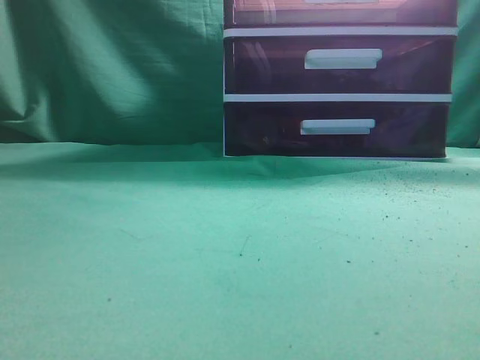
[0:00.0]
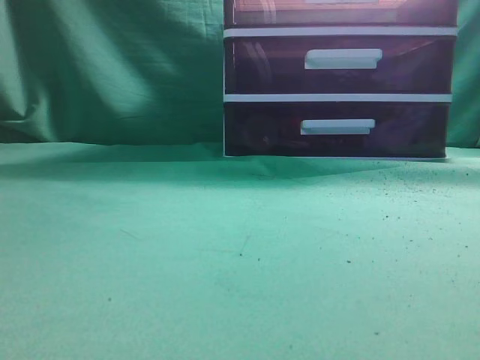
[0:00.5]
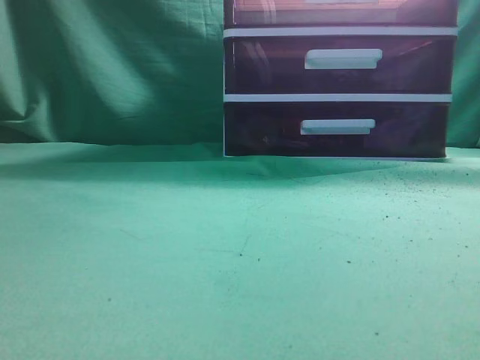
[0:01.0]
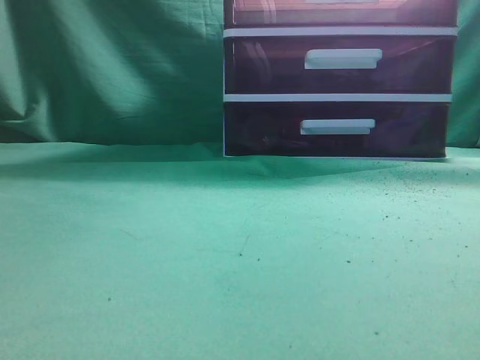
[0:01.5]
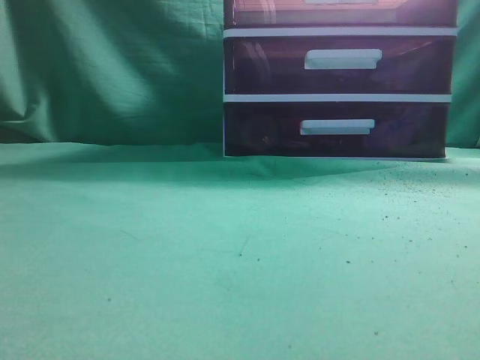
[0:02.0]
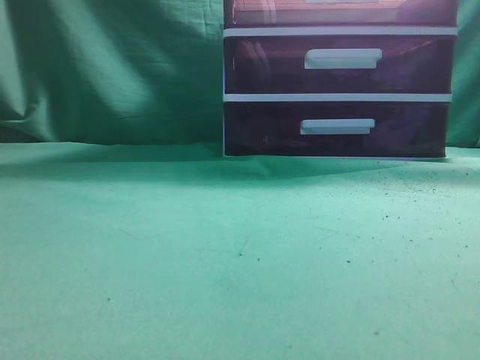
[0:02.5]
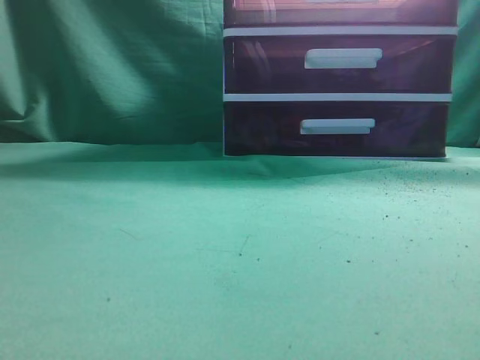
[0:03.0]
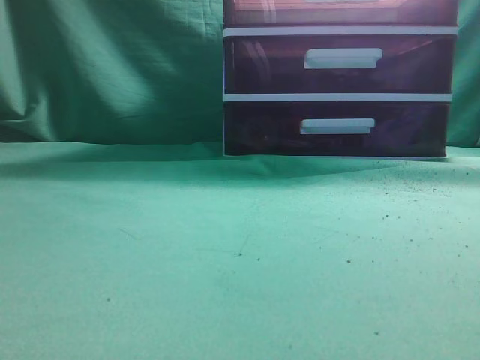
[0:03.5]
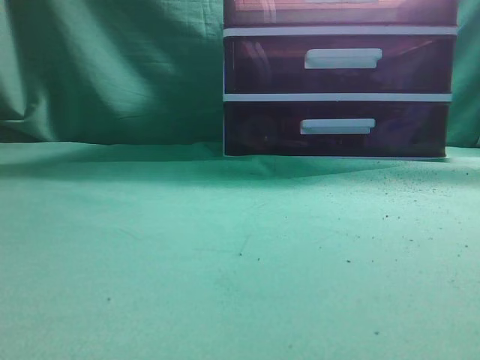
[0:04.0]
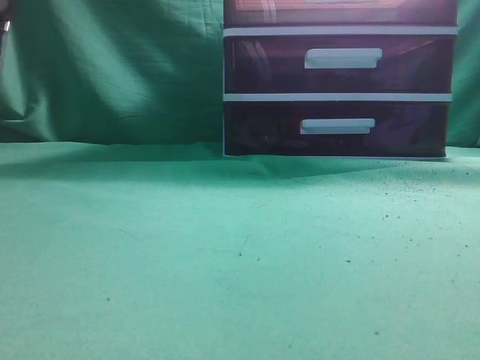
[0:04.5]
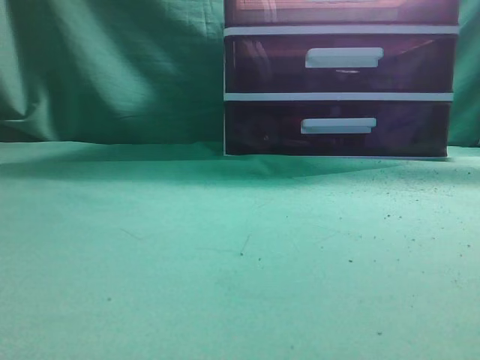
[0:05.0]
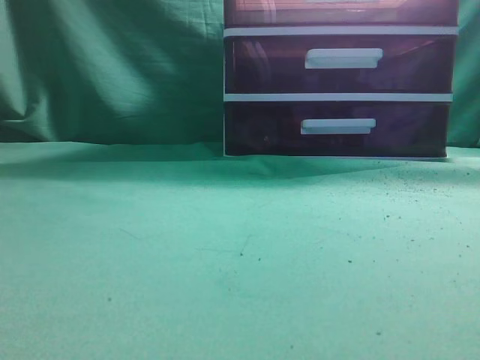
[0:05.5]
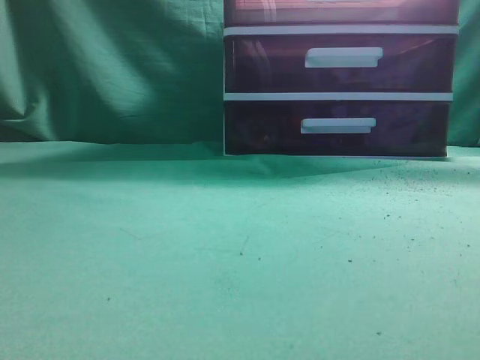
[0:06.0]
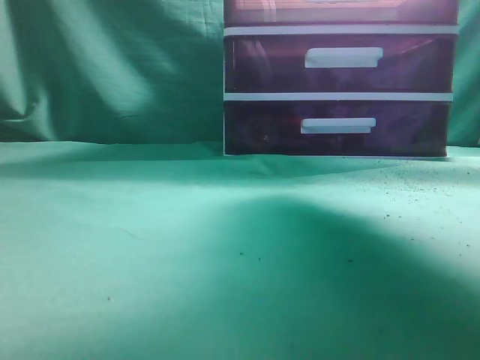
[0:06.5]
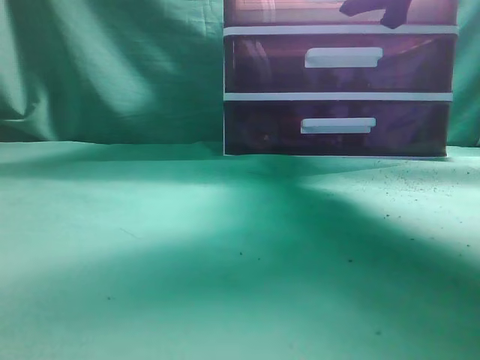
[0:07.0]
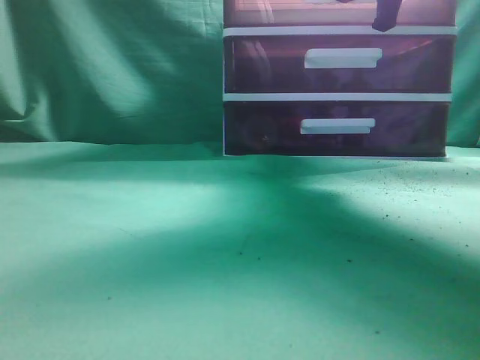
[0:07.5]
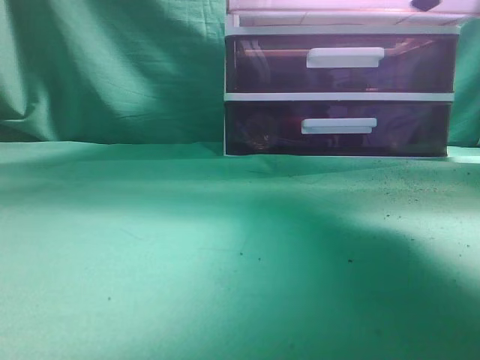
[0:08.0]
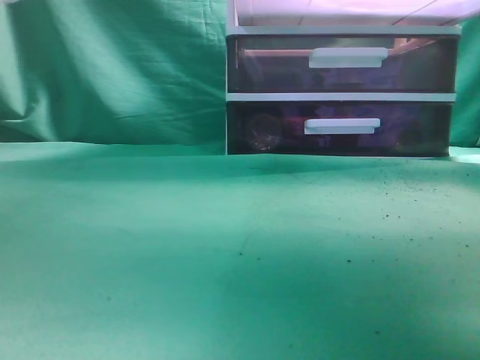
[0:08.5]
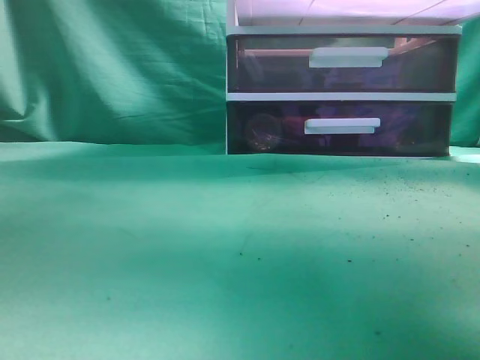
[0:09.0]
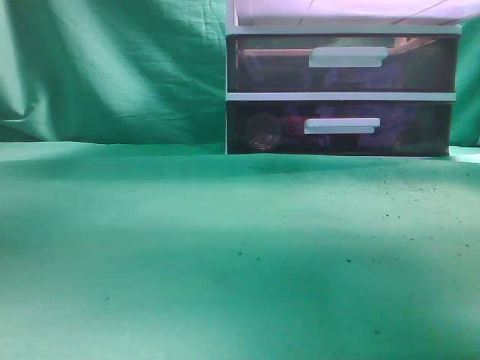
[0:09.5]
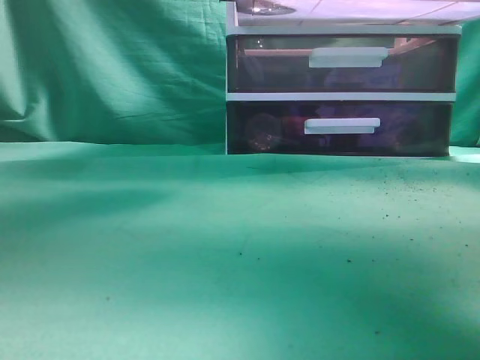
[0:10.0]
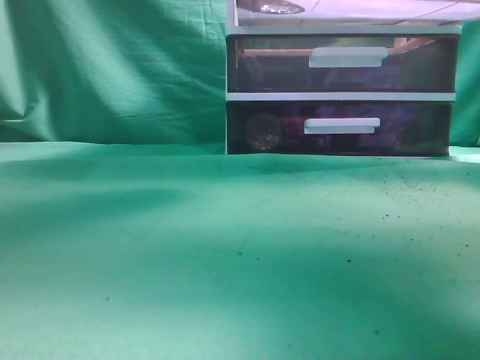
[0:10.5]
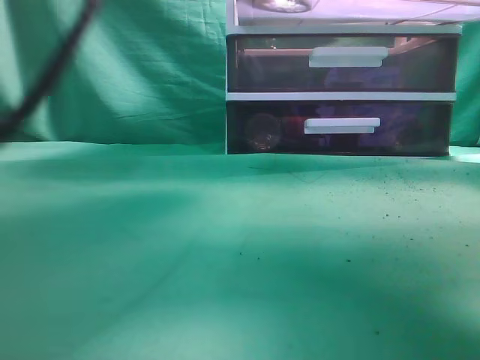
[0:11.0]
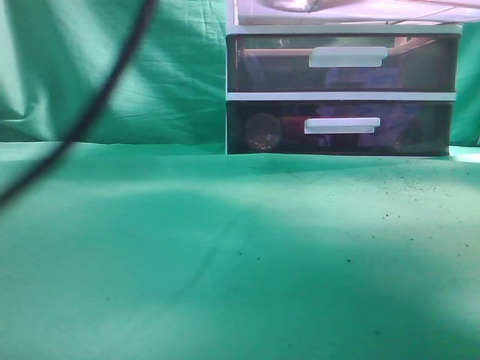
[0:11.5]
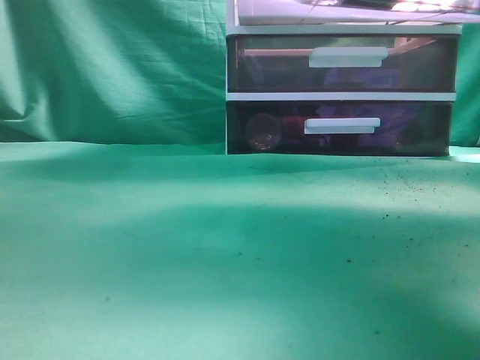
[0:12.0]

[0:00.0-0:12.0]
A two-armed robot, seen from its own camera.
Task of the whole recording: place the water bottle into the drawer.
Step, 0:00.0 to 0:09.0: Open the drawer.
Step, 0:09.5 to 0:12.0: Place the water bottle inside the drawer.
0:04.0 to 0:06.0: The right gripper travels upward and forward by about 30 cm.
0:06.0 to 0:08.0: The right gripper travels forward, downward and to the left by roughly 15 cm, and opens, then closes once more.
0:08.0 to 0:10.0: The right gripper heads backward, covering about 10 cm. Meanwhile the left gripper travels to the right and forward by roughly 25 cm.
0:10.0 to 0:12.0: The left gripper is displaced to the right by some 10 cm.

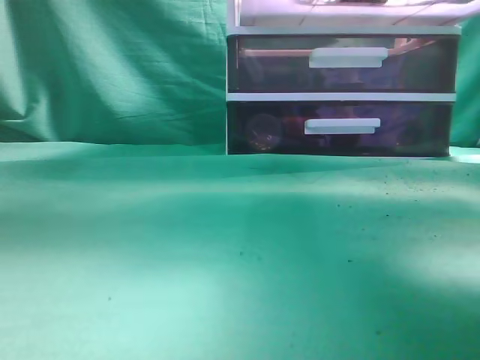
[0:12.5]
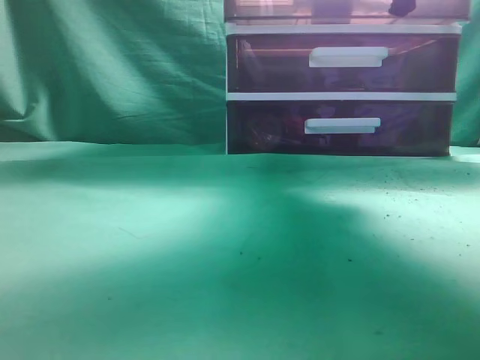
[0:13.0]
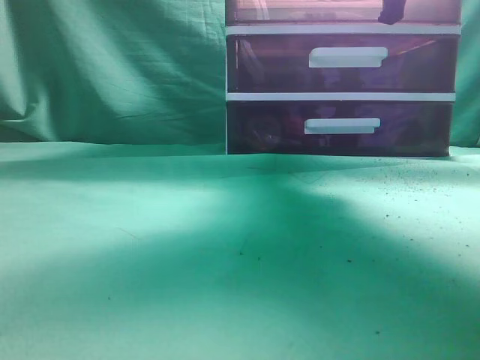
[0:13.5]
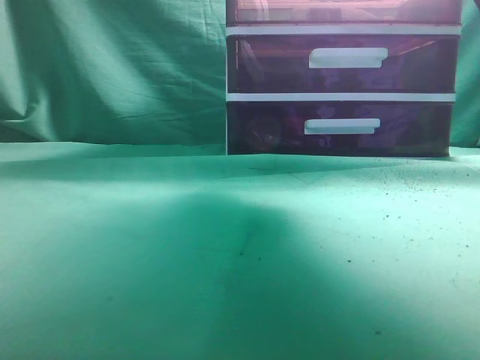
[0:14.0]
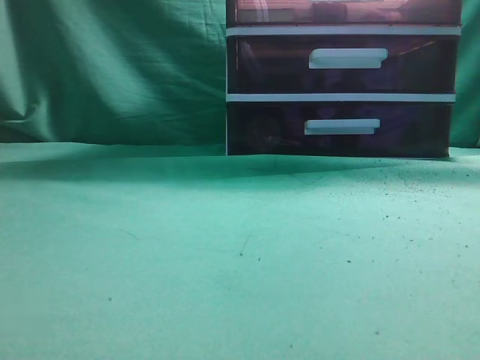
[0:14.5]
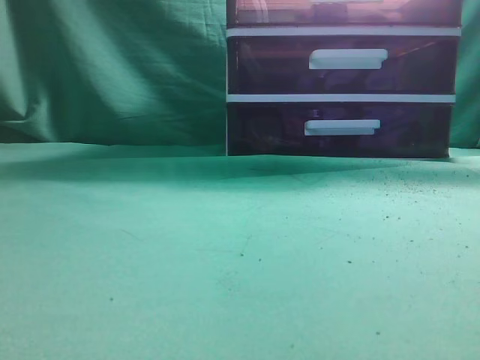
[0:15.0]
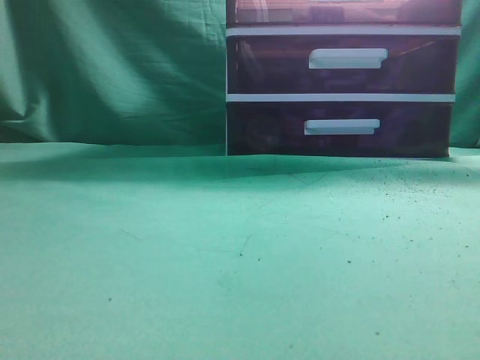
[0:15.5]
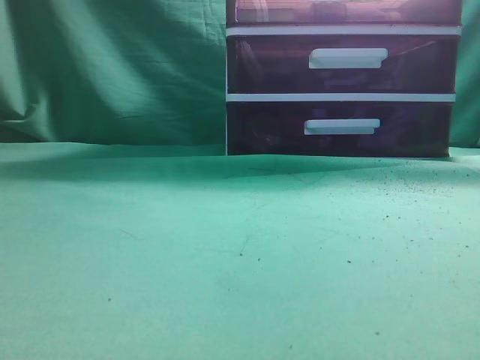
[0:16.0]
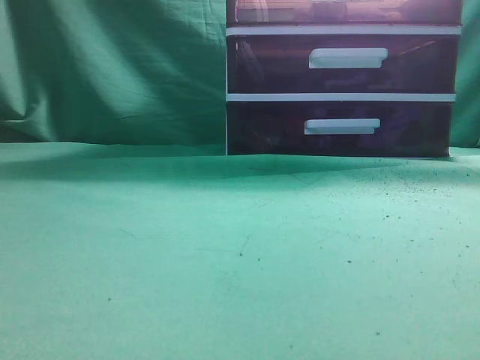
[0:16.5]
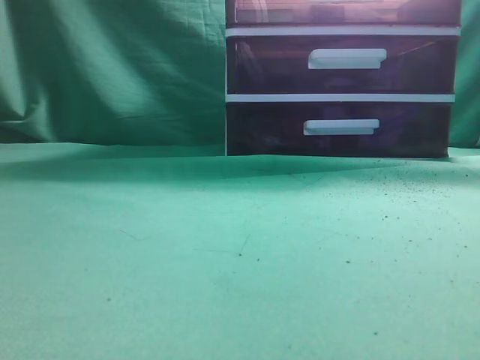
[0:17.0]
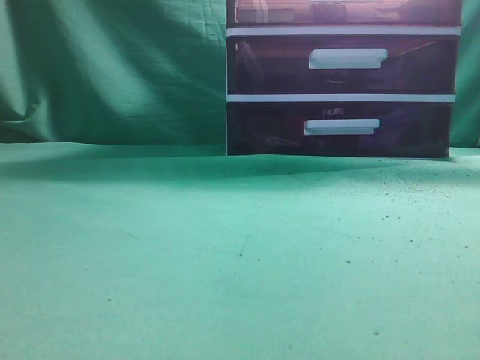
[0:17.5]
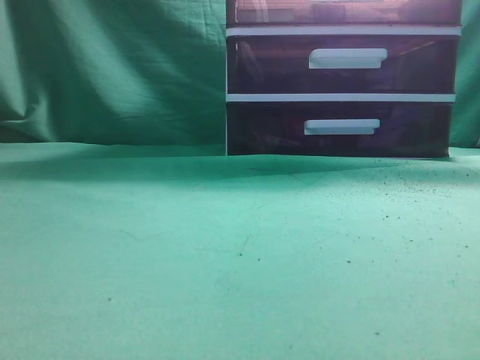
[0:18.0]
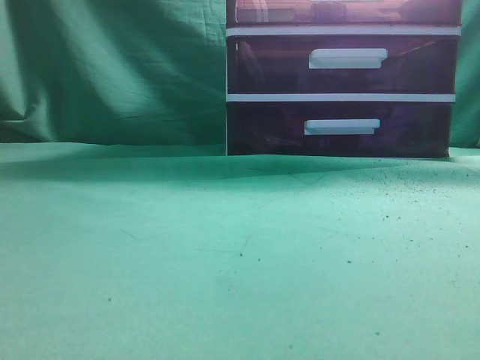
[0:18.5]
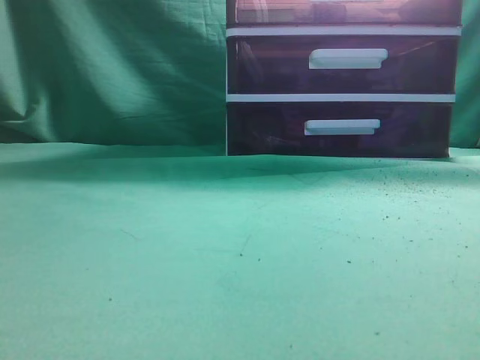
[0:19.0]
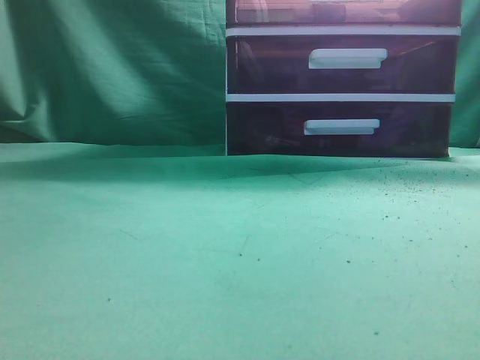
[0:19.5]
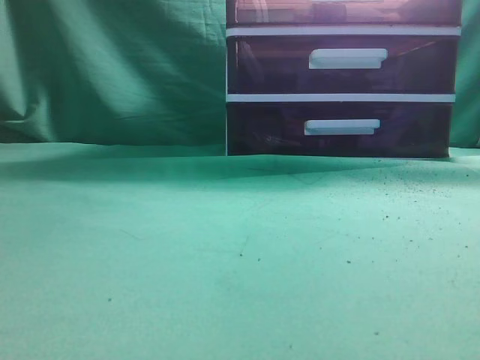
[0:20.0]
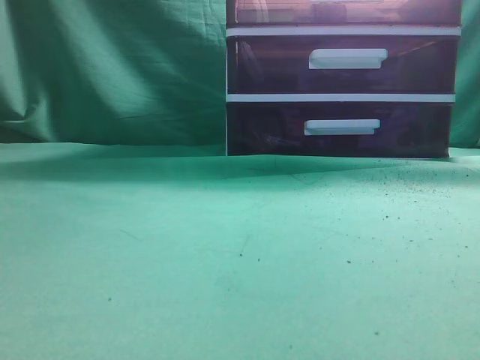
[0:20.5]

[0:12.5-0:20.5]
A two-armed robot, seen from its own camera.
Task of the whole recording: place the water bottle into the drawer.
Step, 0:12.5 to 0:13.5: Close the drawer.
0:12.5 to 0:14.5: The right gripper heads to the left and upward, covering some 10 cm, moves approximately 15 cm forward and comes back, and opens up; the left gripper moves backward and to the left, about 25 cm.
0:14.5 to 0:16.5: The left gripper is displaced downward by some 20 cm. Meanwhile the right gripper heads backward, to the right and downward, covering some 25 cm, and closes.
